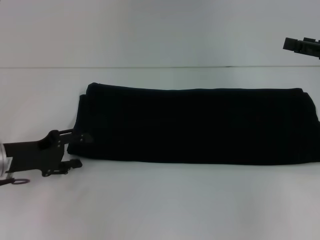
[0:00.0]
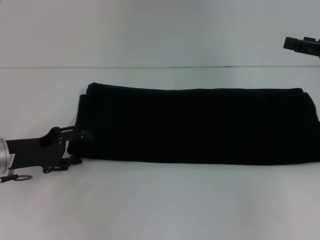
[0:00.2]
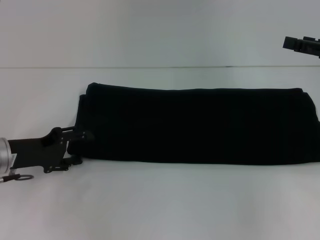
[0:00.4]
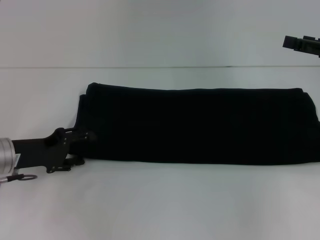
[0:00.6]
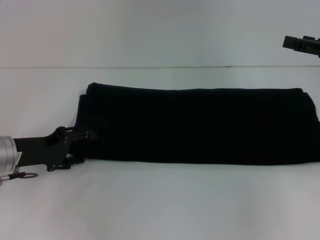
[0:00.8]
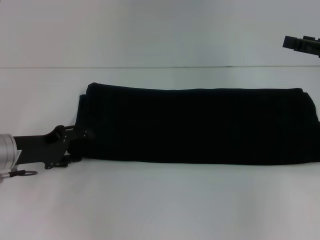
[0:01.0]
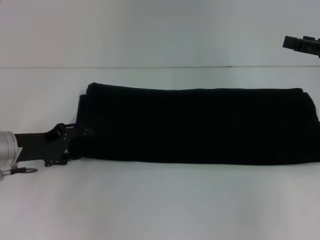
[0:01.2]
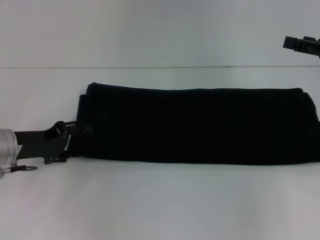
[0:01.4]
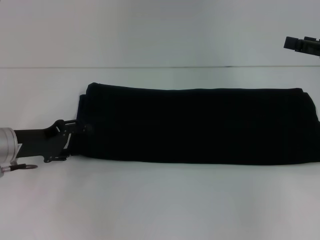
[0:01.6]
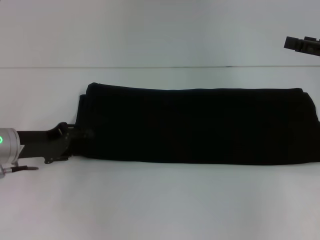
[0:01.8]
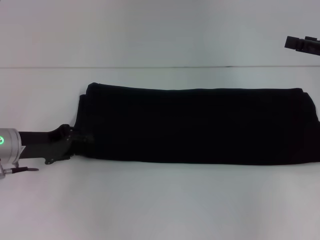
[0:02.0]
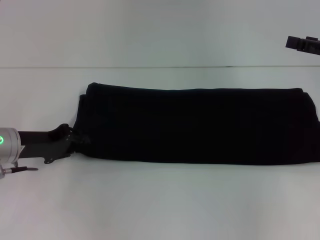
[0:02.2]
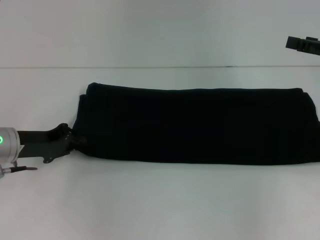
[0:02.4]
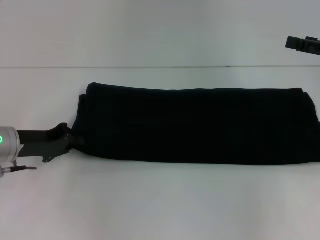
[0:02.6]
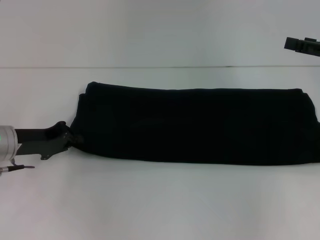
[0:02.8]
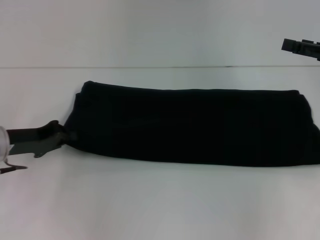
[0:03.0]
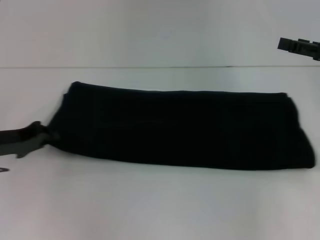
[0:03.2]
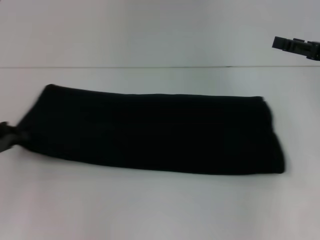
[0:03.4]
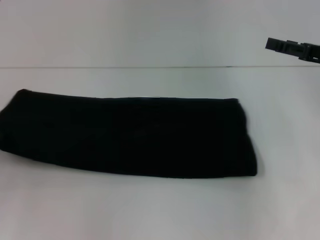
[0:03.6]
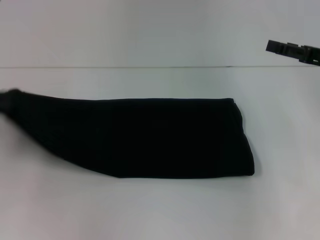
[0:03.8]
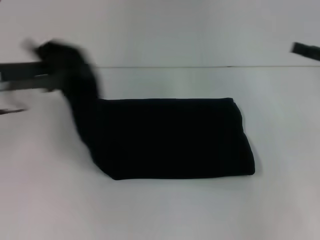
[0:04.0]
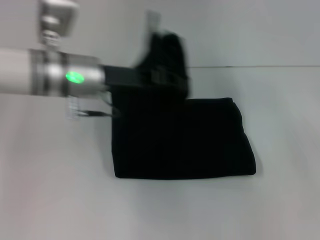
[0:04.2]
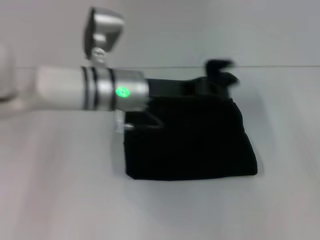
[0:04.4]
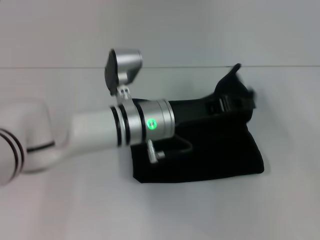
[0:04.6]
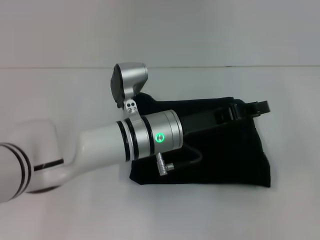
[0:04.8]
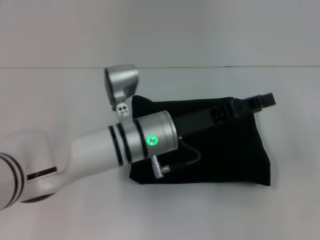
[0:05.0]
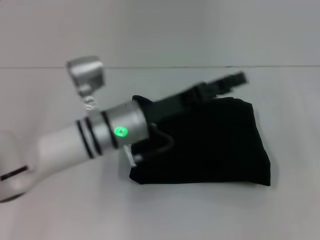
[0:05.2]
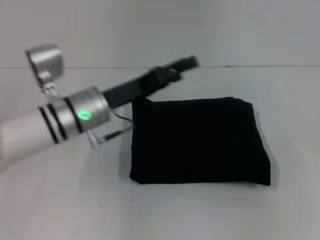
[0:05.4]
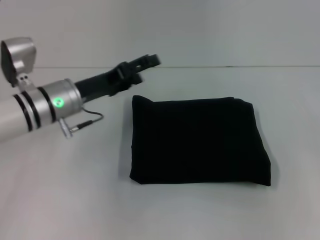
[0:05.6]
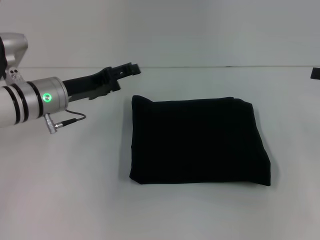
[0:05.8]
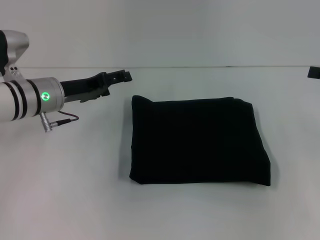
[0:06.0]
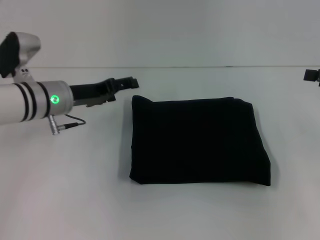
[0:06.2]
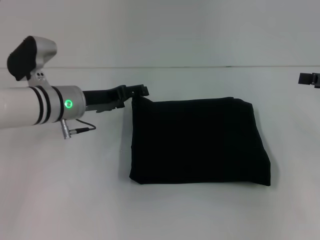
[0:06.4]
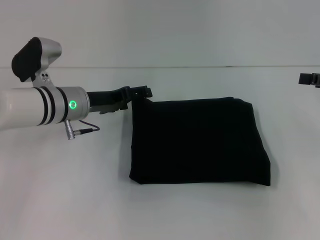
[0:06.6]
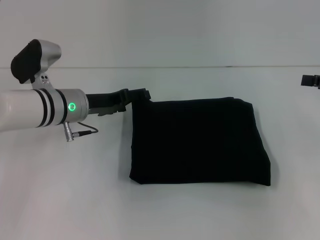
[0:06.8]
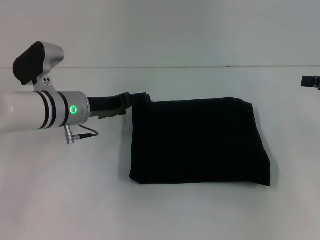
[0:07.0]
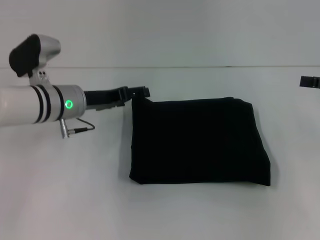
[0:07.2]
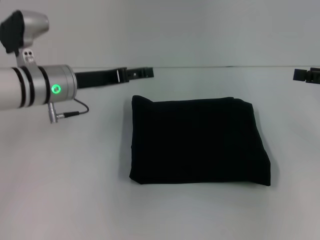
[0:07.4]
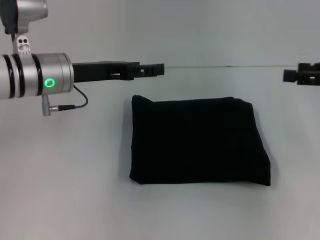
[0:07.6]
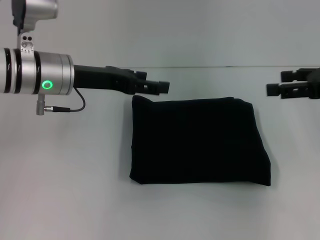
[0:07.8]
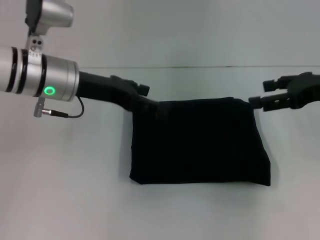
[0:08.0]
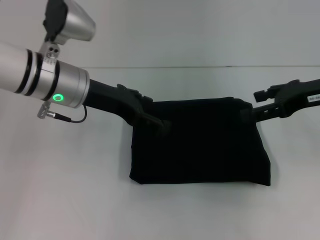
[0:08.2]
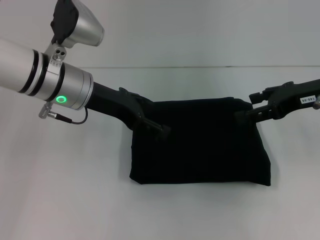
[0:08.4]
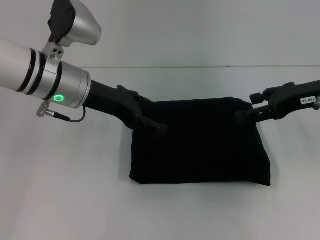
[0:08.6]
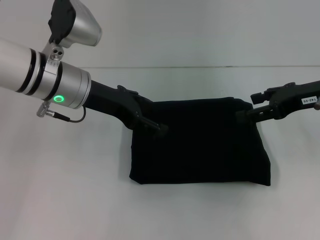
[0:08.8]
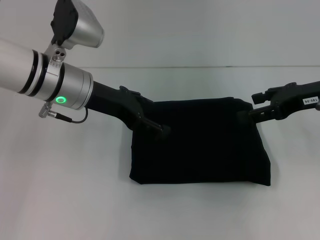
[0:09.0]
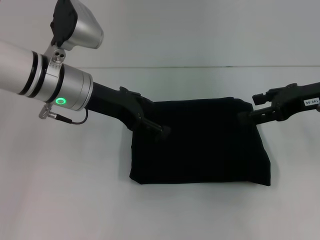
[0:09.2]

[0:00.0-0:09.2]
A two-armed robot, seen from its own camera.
Step, 0:00.0 to 0:04.8: Fold the clothes with your left hand.
0:00.0 to 0:01.6: The grippers stay close to where they were, moving slightly.
0:01.6 to 0:03.0: The left gripper closes its fingers.
0:03.0 to 0:04.6: The left gripper heads to the right, covering approximately 25 cm, while the right gripper shifts approximately 10 cm to the right and backward.
0:04.6 to 0:06.2: The right gripper goes about 5 cm to the left. Meanwhile the left gripper travels to the left by some 15 cm, and opens its fingers.
0:06.2 to 0:07.6: The left gripper travels upward by about 5 cm.
0:07.6 to 0:09.2: The right gripper travels to the left by some 5 cm.

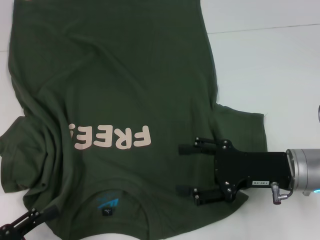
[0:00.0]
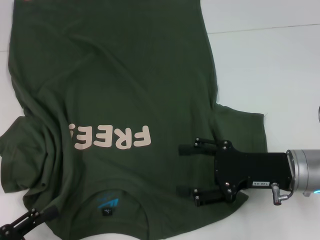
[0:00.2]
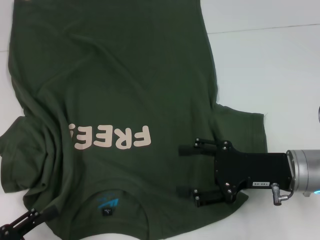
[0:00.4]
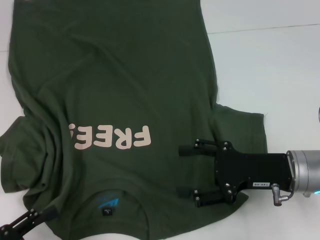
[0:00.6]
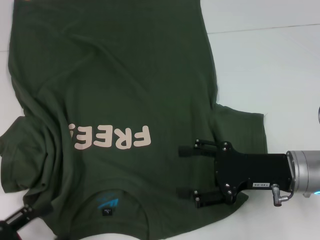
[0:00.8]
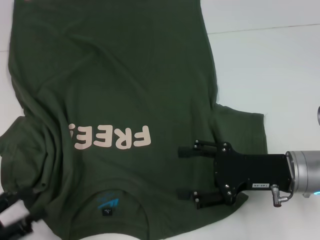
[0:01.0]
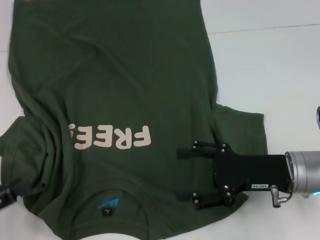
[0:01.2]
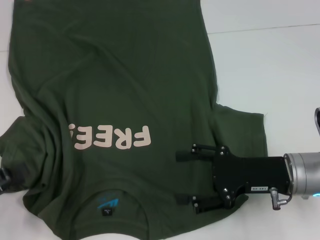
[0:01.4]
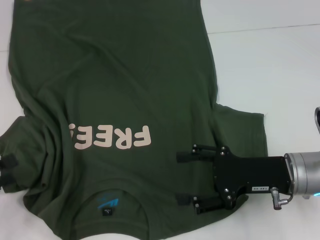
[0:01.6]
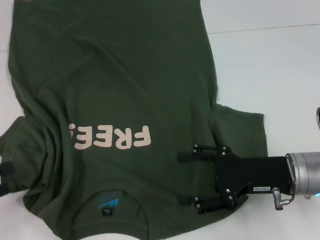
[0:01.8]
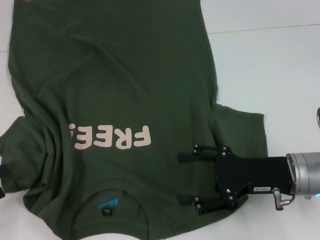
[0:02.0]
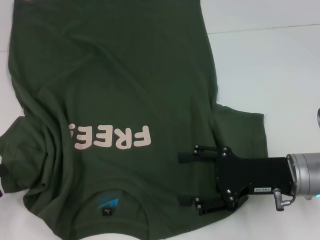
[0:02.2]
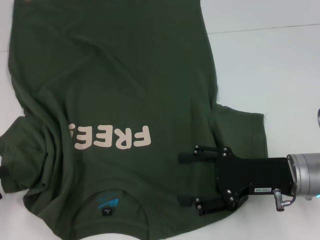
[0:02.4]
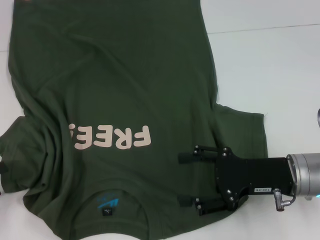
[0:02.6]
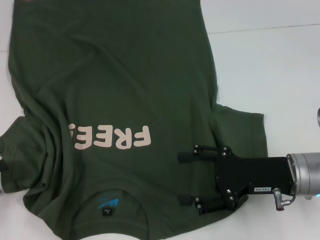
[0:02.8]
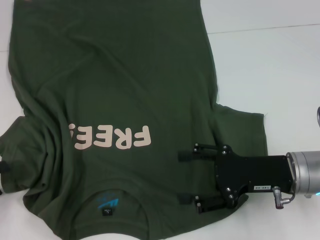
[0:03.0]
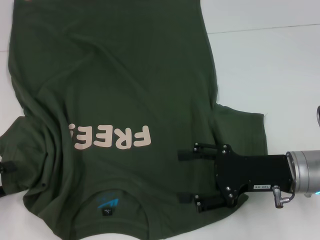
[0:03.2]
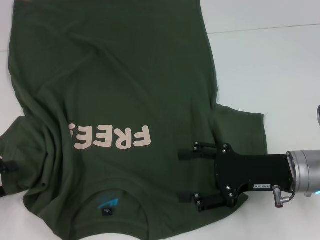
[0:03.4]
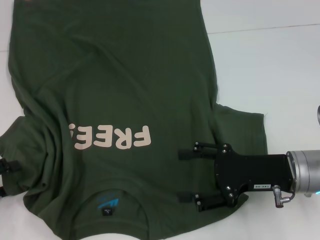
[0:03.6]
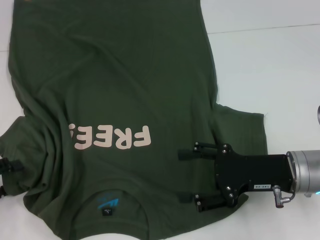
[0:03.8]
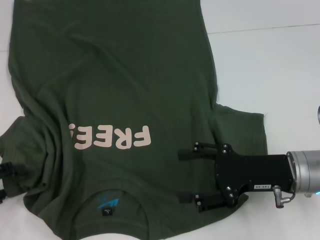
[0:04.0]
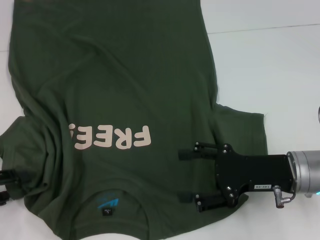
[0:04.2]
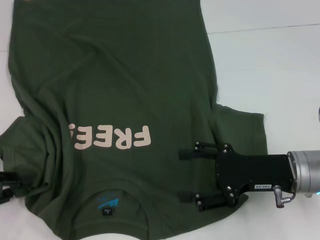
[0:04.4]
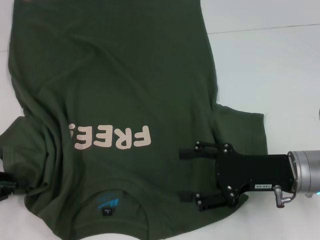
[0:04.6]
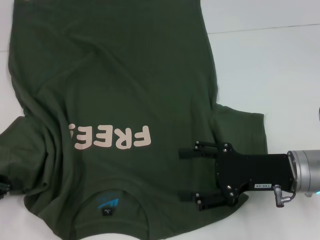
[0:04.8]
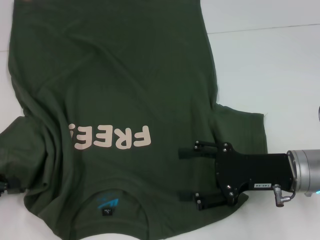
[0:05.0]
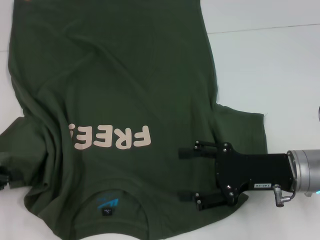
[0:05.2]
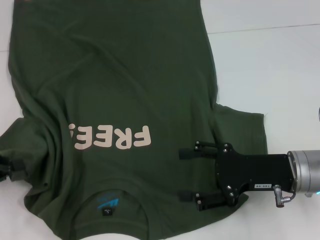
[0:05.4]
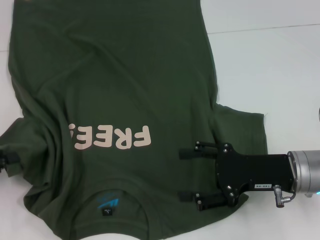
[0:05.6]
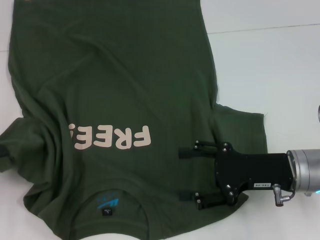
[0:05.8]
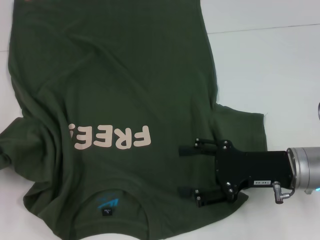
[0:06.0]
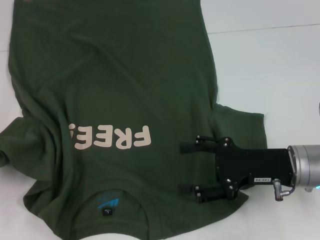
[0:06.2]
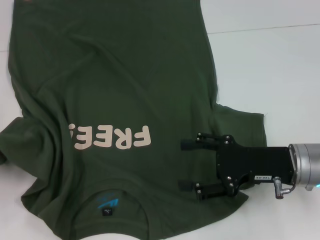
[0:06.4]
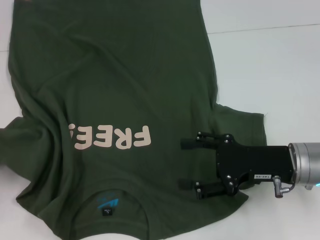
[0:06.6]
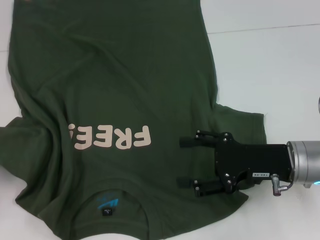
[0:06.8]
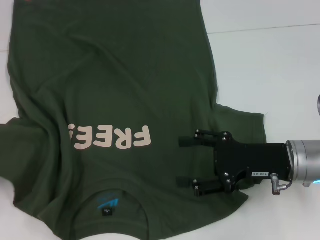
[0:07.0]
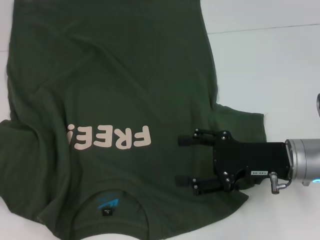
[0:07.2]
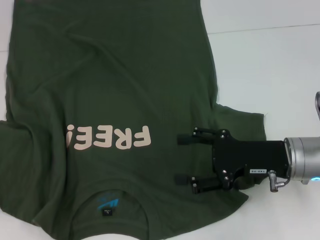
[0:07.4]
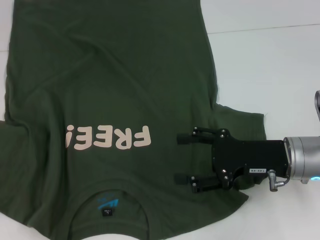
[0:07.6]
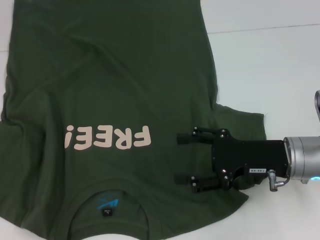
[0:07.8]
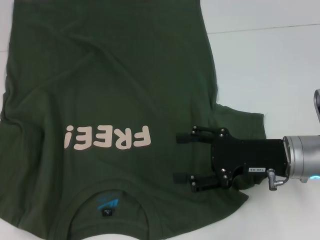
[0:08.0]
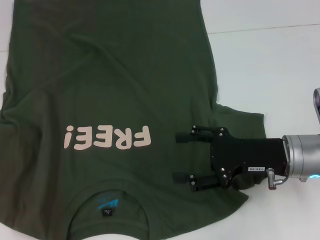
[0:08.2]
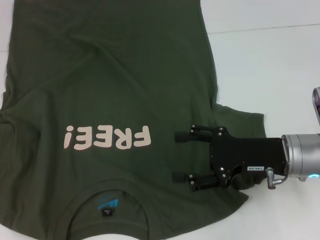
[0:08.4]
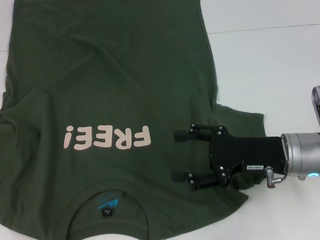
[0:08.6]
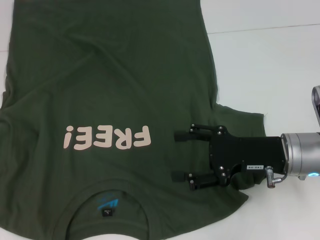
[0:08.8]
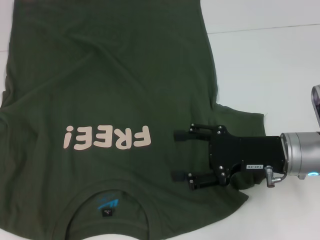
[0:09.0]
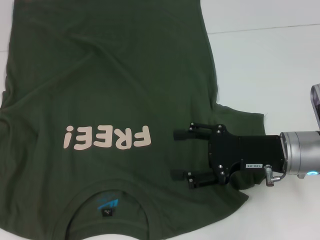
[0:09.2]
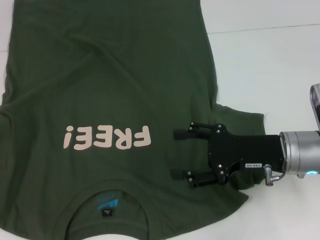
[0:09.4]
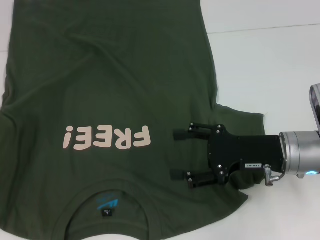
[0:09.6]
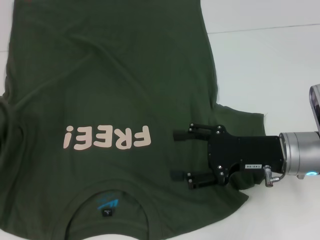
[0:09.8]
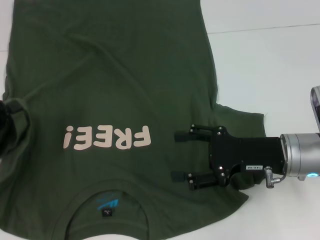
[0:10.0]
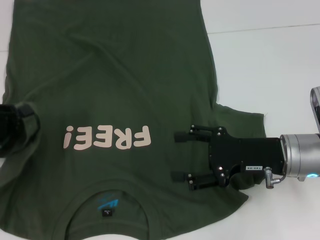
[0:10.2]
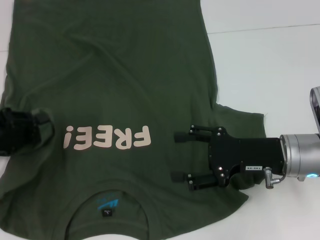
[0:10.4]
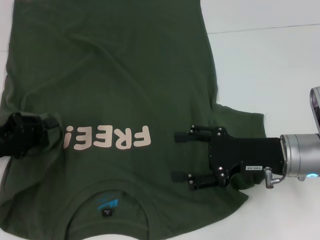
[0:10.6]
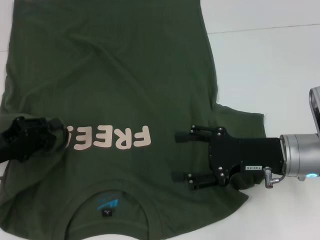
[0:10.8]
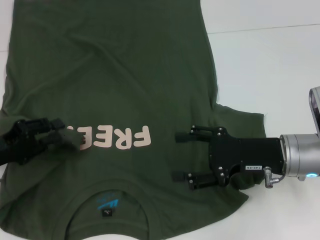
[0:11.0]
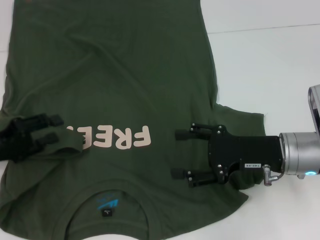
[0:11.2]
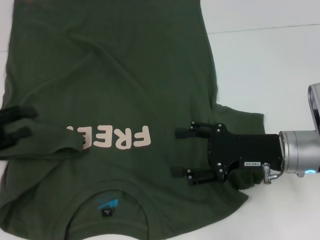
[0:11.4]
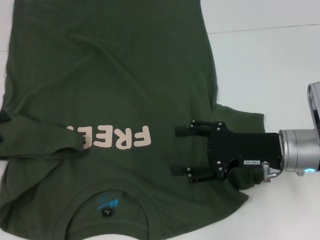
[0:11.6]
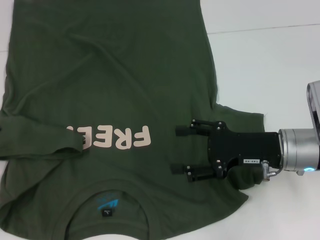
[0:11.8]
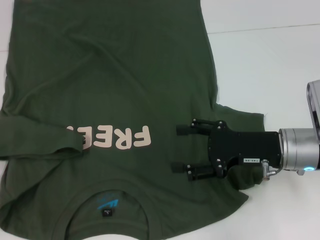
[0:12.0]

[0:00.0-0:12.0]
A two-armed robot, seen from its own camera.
0:00.0 to 0:01.6: The left gripper goes approximately 10 cm forward and to the left.
0:01.6 to 0:03.0: The grippers stay close to where they were, moving slightly.
0:03.0 to 0:04.4: The left gripper closes its fingers.
0:04.4 to 0:06.0: The left gripper changes place by about 5 cm, and closes.
0:06.0 to 0:07.6: The left gripper changes place by approximately 5 cm.
0:07.6 to 0:09.0: The grippers make only small movements.
0:09.0 to 0:10.4: The left gripper travels to the right and forward by about 15 cm.
0:10.4 to 0:12.0: The left gripper goes approximately 5 cm to the left, and opens up.

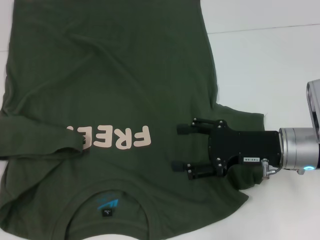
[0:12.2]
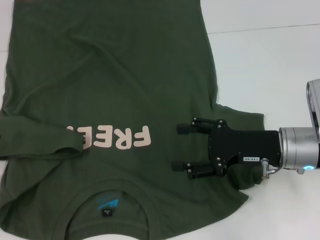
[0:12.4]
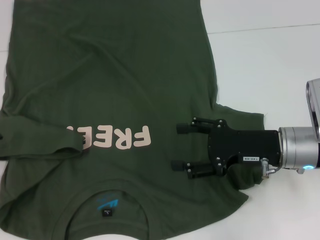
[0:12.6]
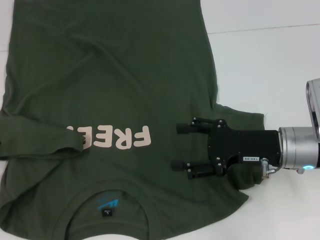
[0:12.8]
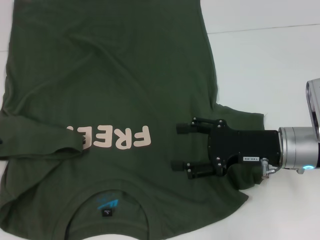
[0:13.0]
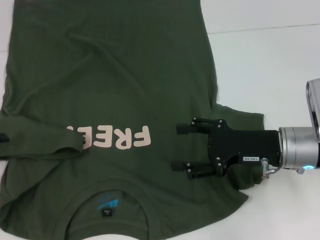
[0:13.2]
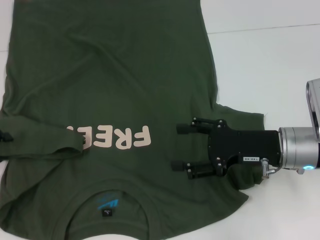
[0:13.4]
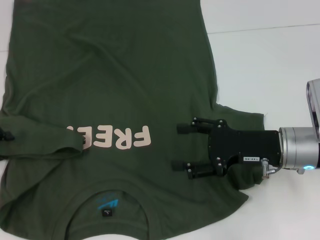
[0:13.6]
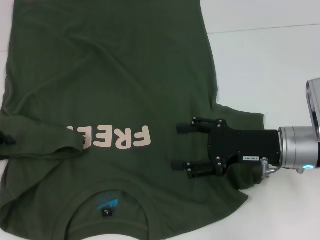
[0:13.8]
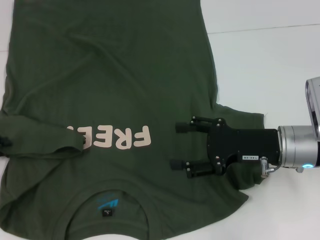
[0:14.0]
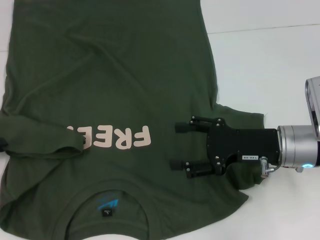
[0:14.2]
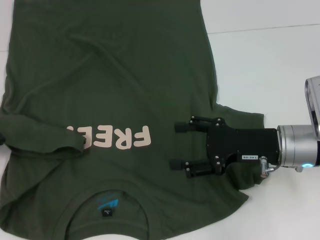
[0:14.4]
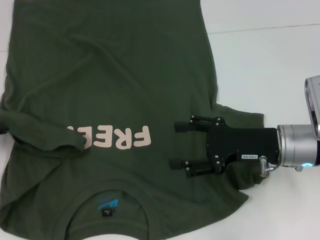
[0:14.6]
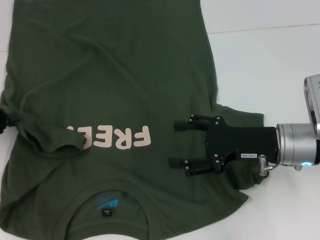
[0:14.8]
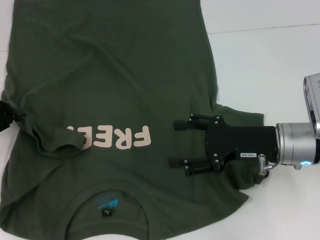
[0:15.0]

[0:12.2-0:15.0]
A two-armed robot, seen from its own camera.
0:13.6 to 0:15.0: The left gripper closes.
